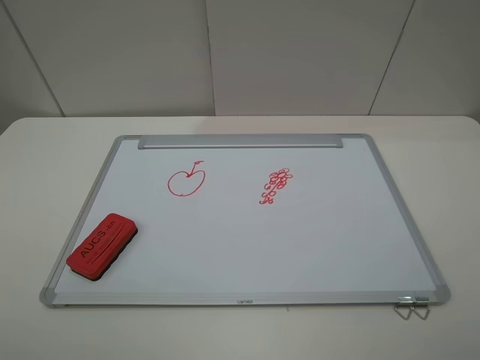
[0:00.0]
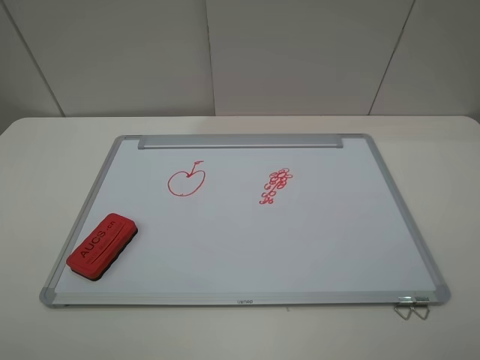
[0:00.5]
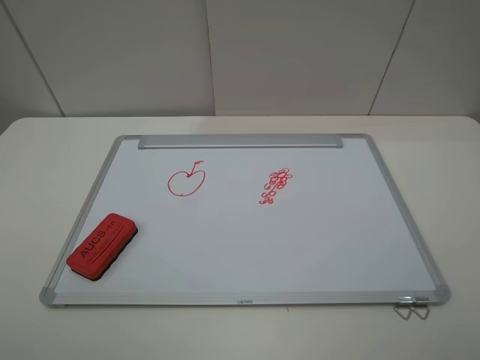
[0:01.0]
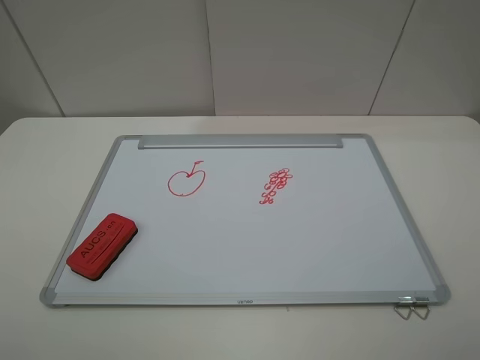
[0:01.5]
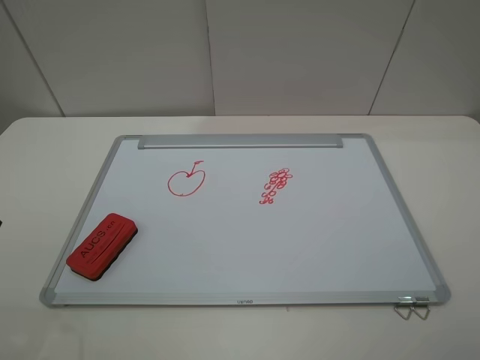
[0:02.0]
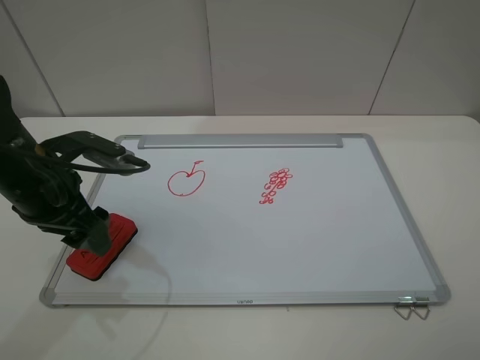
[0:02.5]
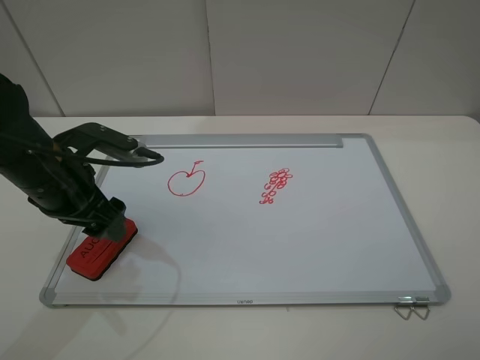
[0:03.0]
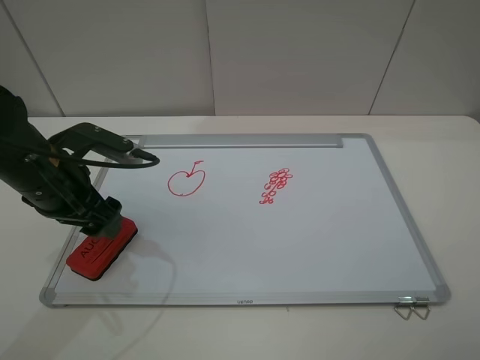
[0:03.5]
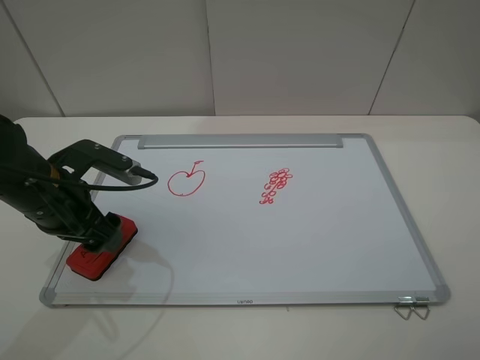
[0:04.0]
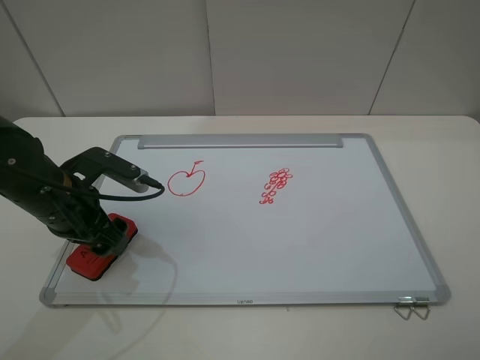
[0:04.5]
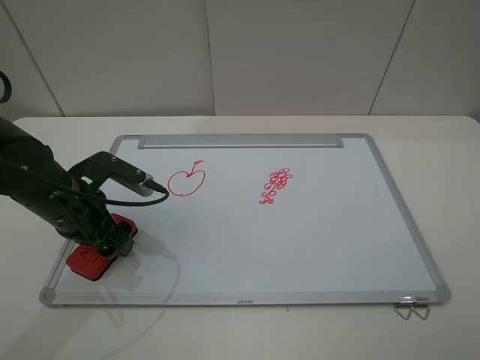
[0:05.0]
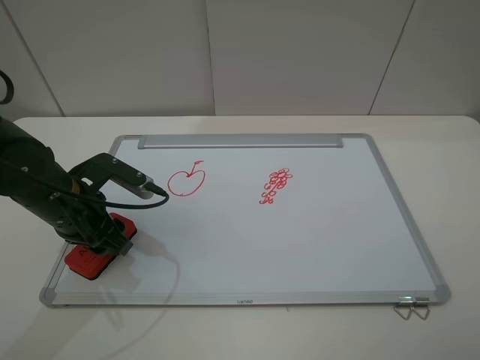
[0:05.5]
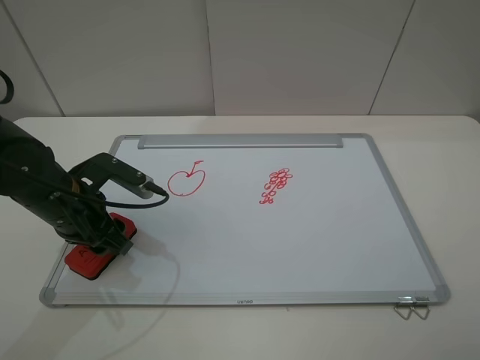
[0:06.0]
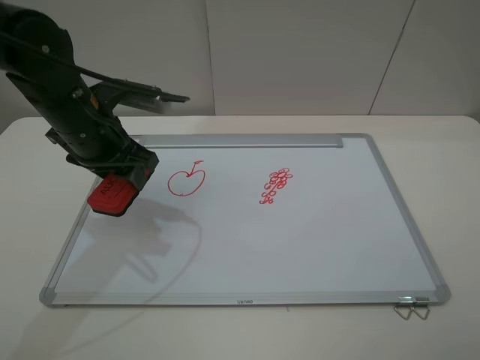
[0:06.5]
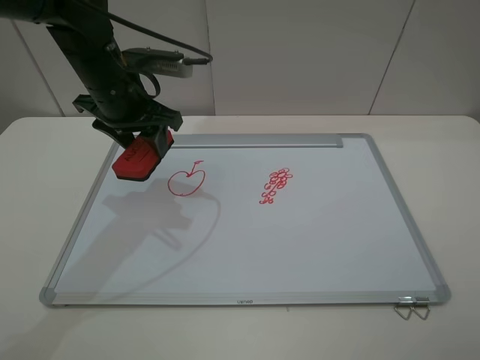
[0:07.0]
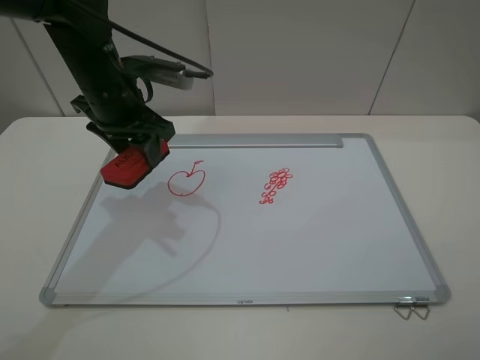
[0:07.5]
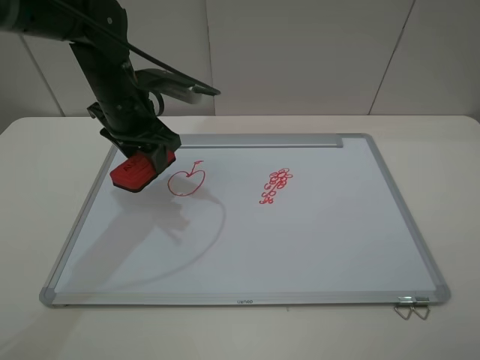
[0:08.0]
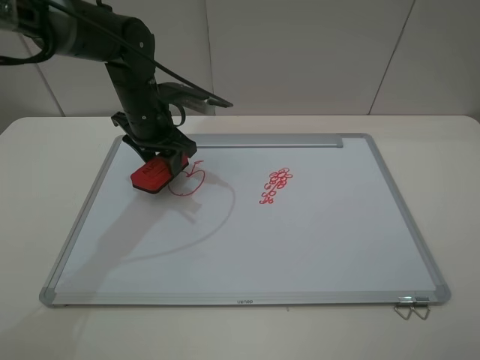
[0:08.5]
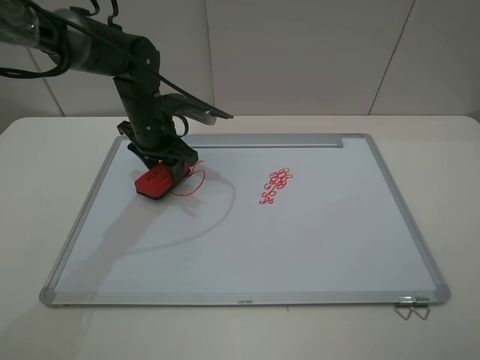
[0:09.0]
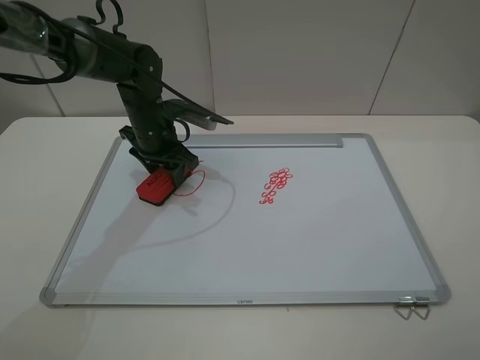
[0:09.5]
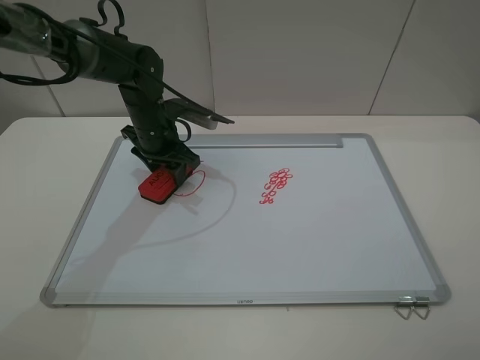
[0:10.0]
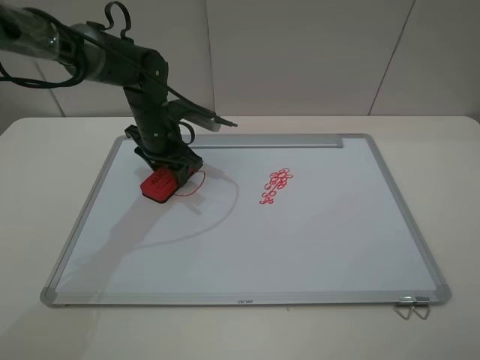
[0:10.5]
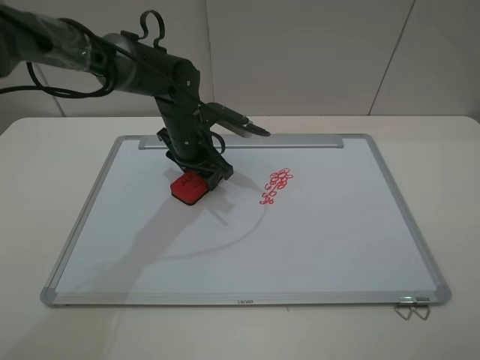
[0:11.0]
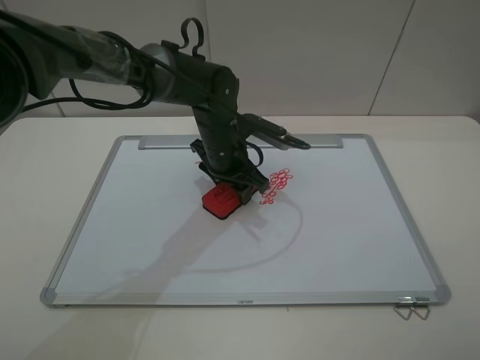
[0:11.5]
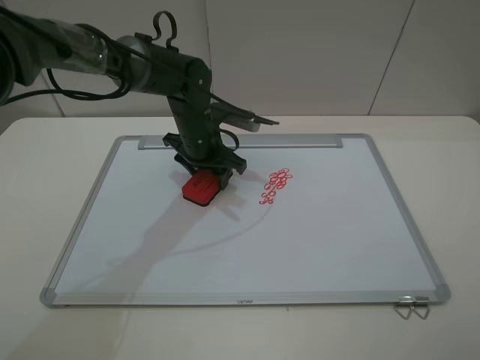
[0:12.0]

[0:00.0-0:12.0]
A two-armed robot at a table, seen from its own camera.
Step, 0:00.0 to 0:05.0: Grasp the eraser with the left gripper.
0:02.0 to 0:04.0: The left gripper shifts about 15 cm downward, to the right and forward.
0:04.0 to 0:06.0: The left gripper closes its fingers.
0:06.0 to 0:08.0: The left gripper moves forward, upward and to the right, about 15 cm.
0:08.0 to 0:10.0: The left gripper shifts roughly 10 cm downward.
0:10.0 to 0:12.0: The left gripper goes roughly 5 cm to the right.

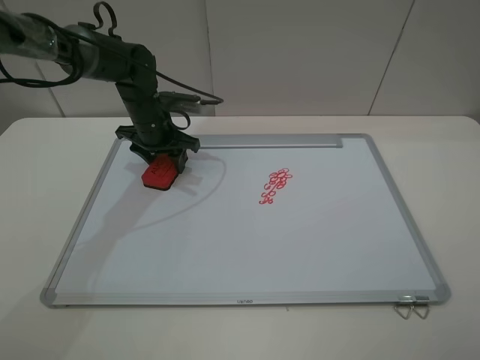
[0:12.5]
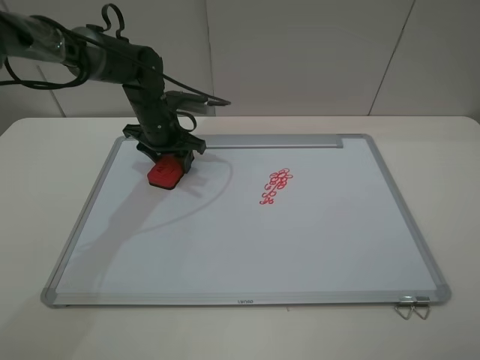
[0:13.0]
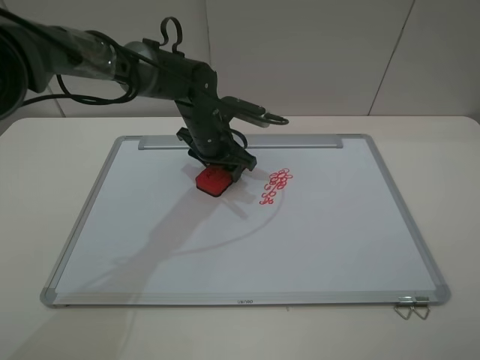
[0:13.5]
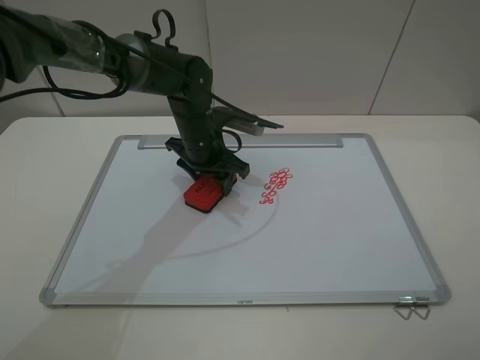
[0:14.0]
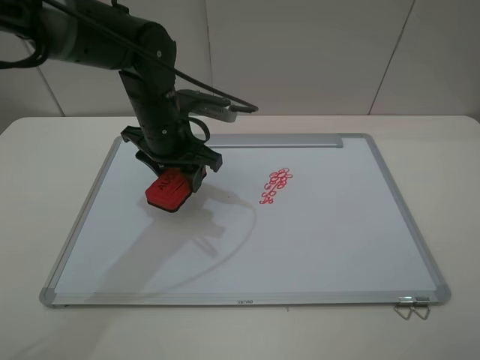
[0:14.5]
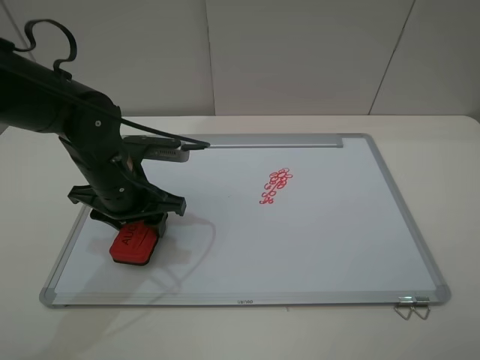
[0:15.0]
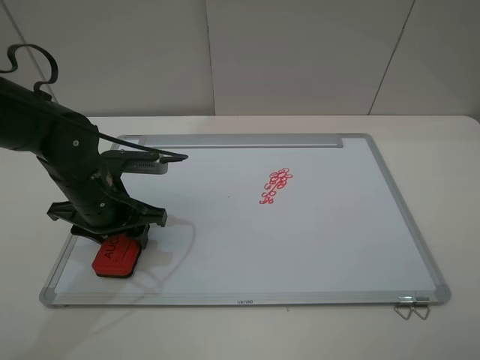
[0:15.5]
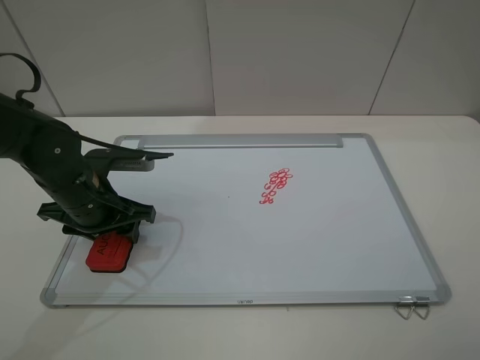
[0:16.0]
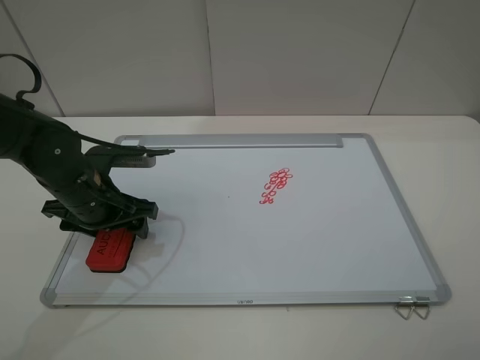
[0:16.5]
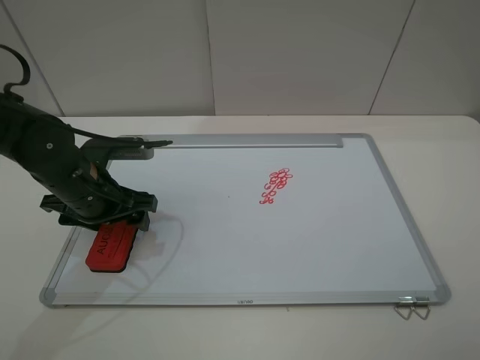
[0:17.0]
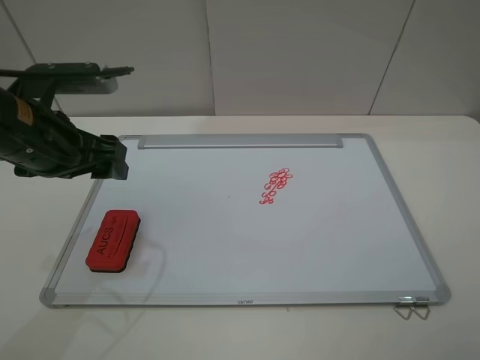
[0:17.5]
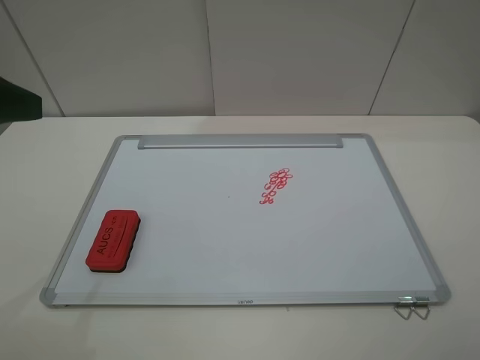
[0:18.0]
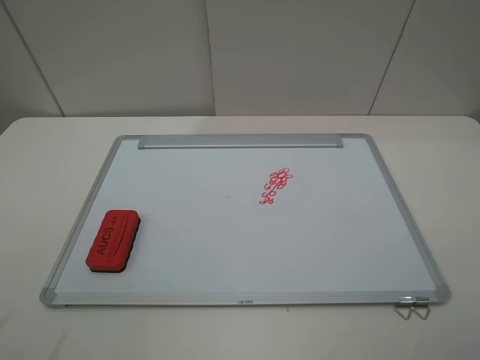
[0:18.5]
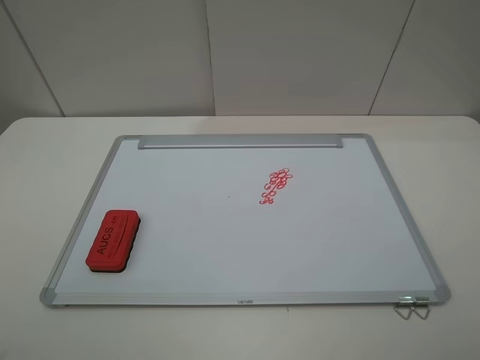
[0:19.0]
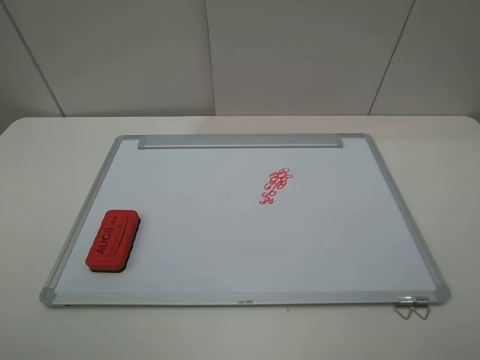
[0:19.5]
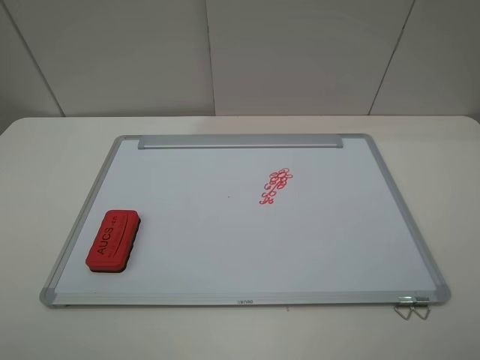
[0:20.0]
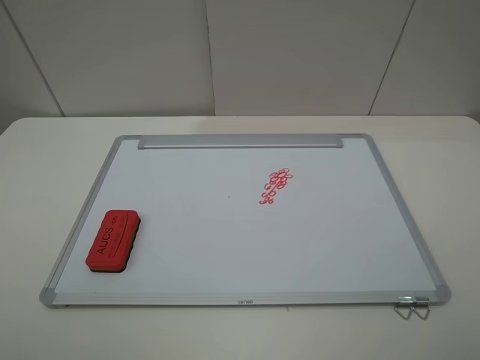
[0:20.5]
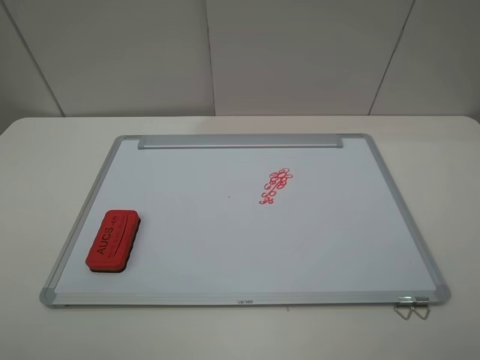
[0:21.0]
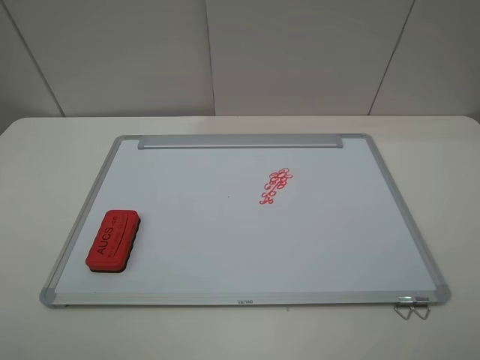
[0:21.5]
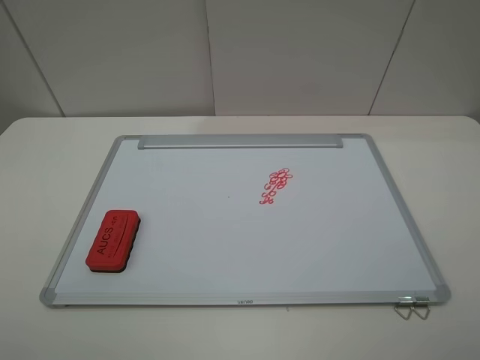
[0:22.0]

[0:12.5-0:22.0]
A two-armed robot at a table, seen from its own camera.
Step, 0:14.5 to 0:17.0: Place the eraser with the left gripper.
0:12.5 to 0:14.5: The left gripper heads backward, upward and to the right, covering some 15 cm.
0:14.5 to 0:16.5: The left gripper is displaced to the left, backward and downward by about 15 cm, and opens up.
0:16.5 to 0:18.0: The left gripper heads upward and backward, covering some 25 cm.
0:18.0 to 0:20.0: The left gripper heads backward, covering about 15 cm.
